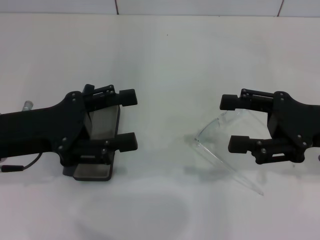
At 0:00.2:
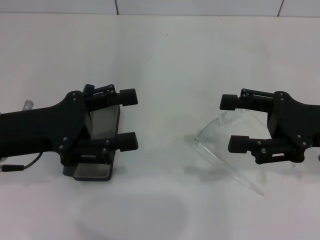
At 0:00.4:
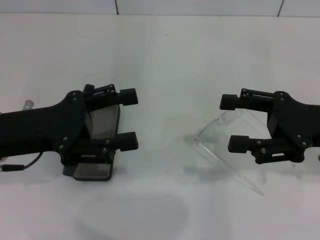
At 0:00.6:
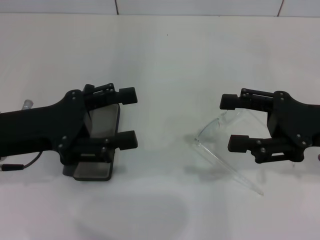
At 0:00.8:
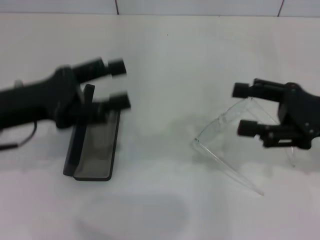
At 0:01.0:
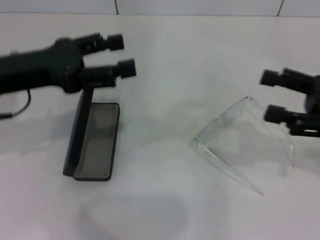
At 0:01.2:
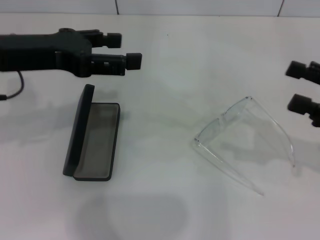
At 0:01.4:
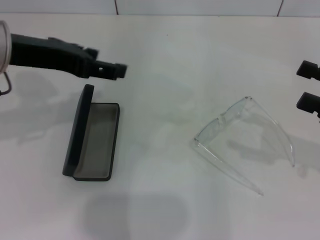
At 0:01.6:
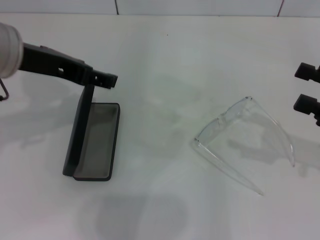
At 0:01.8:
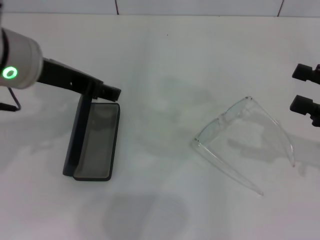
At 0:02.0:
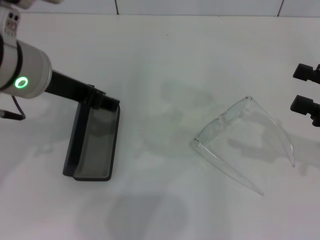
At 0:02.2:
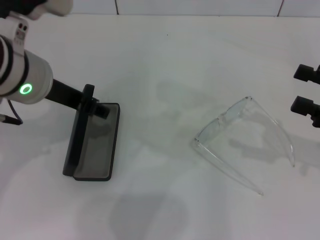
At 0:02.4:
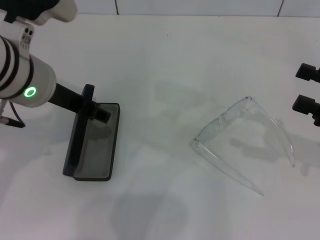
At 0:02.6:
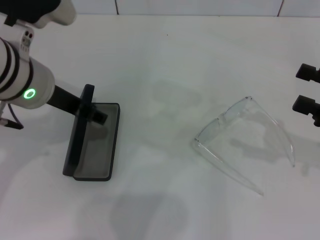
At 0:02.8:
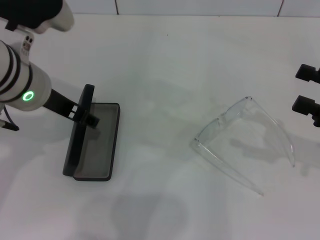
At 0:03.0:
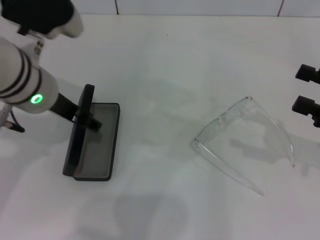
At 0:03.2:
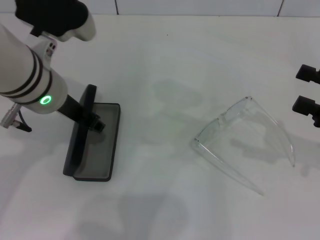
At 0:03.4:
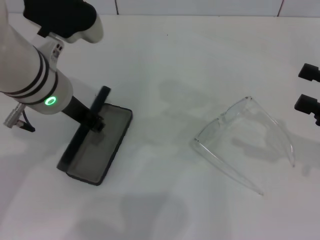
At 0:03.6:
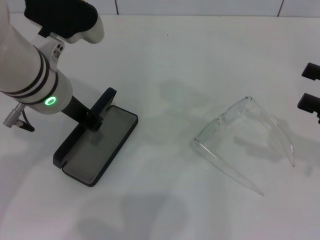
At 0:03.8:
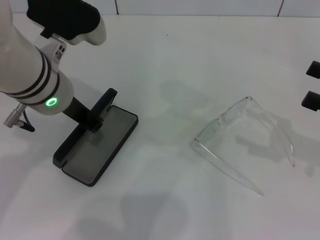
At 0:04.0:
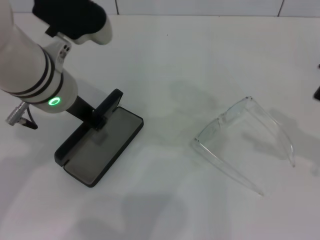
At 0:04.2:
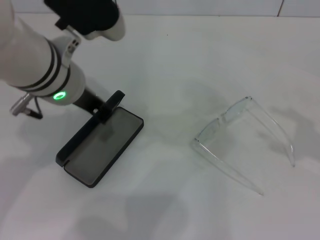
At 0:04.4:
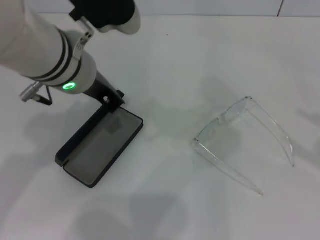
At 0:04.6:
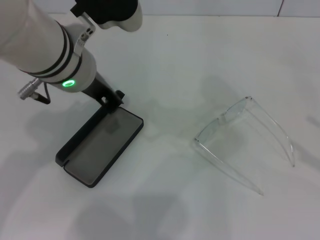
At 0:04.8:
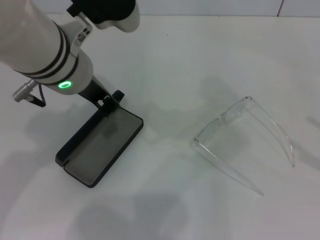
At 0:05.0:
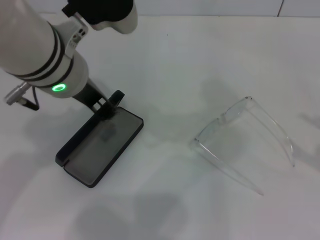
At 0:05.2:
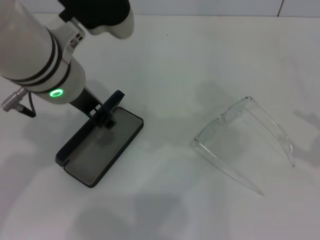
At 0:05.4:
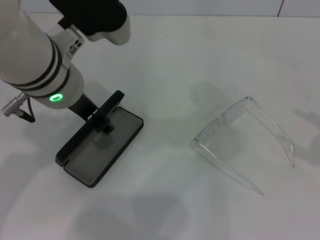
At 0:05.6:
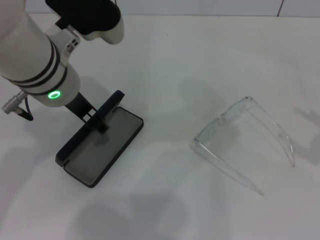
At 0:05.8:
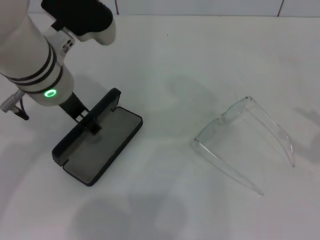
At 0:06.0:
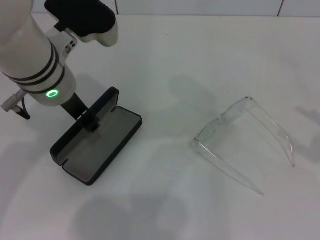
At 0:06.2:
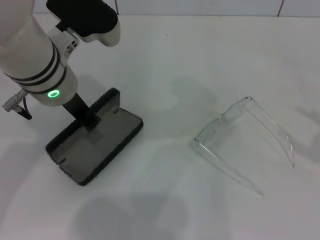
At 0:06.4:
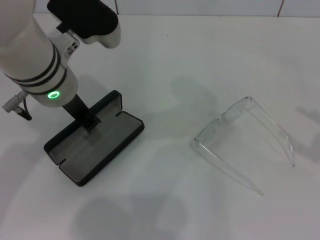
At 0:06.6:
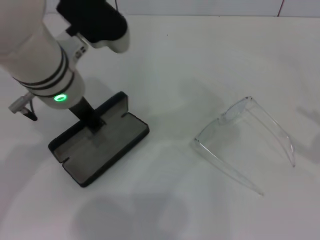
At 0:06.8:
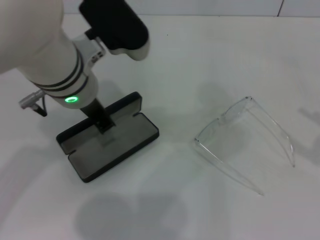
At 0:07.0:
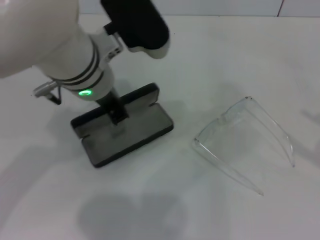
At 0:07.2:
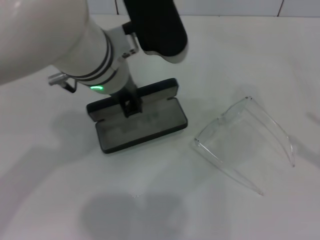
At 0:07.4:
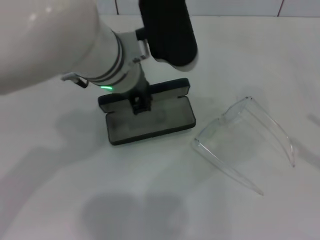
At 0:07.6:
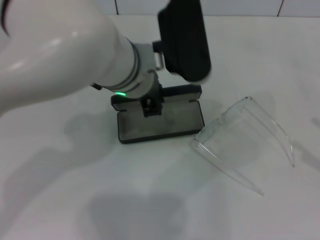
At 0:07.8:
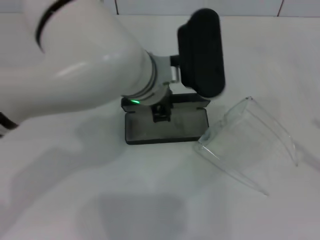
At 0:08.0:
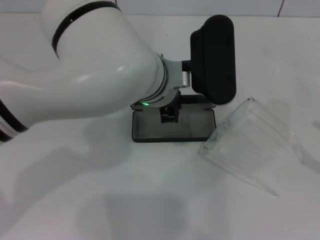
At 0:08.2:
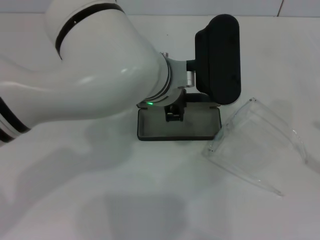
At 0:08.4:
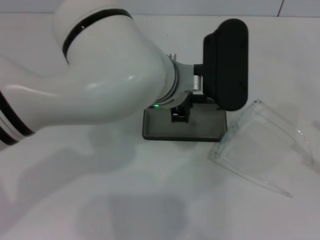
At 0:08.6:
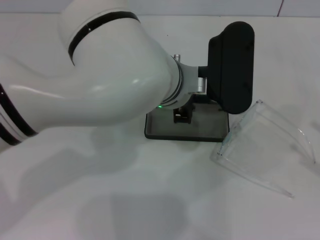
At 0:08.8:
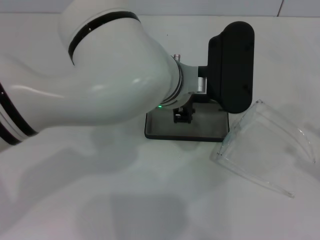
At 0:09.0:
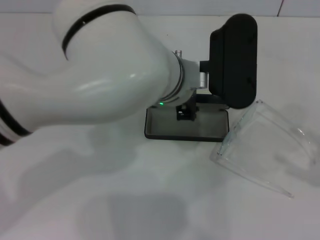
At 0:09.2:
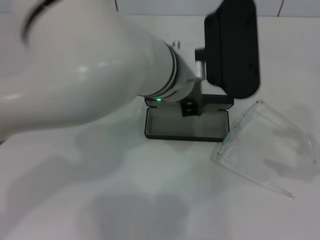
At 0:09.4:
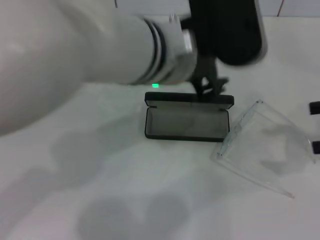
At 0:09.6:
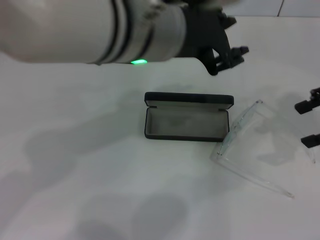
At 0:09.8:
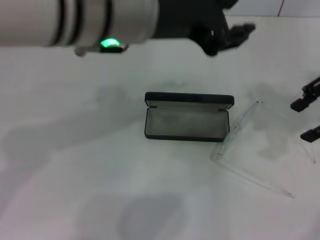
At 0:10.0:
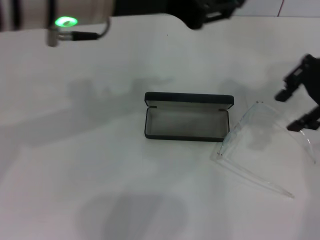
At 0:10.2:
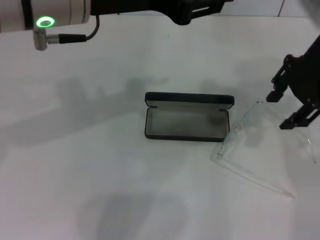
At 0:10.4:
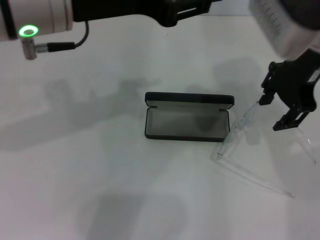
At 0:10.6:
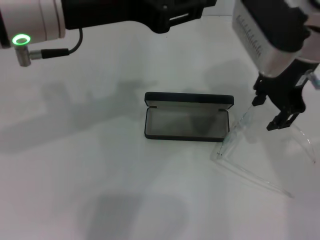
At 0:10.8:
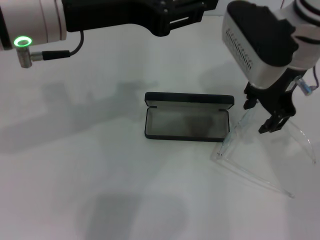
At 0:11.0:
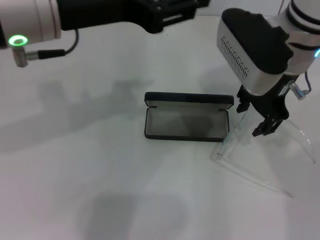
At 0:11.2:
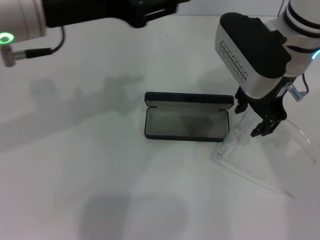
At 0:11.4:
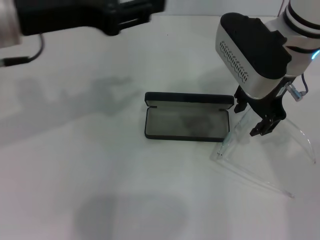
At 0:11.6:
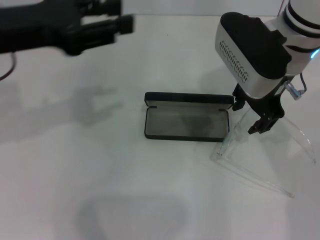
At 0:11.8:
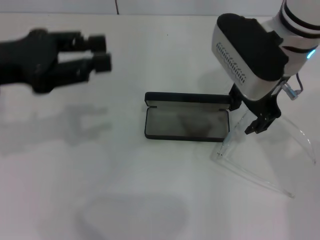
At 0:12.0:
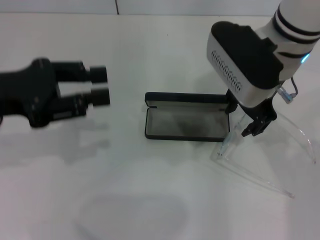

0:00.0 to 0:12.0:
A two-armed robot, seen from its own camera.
Step, 0:00.0 to 0:06.4: Grab the glasses case with your left hand.
Step, 0:06.6 to 0:09.2: Place the glasses case in the center of the table with your left hand.
0:00.0 to 0:01.6: The right gripper goes about 10 cm to the right. The left gripper is displaced upward by some 10 cm.
0:01.6 to 0:03.0: The left gripper shifts some 5 cm downward.
0:03.0 to 0:04.4: The right gripper shifts approximately 10 cm to the right and backward. The left gripper changes place by roughly 5 cm, and closes.
0:04.4 to 0:06.0: The left gripper opens its fingers.
0:06.0 to 0:07.6: The left gripper heads to the right, covering roughly 10 cm.
0:09.0 to 0:10.4: The right gripper shifts approximately 35 cm to the left, forward and upward. The left gripper travels to the left and upward by roughly 20 cm.
0:10.4 to 0:12.0: The left gripper shifts roughly 15 cm to the left and downward, while the right gripper shifts by some 5 cm.

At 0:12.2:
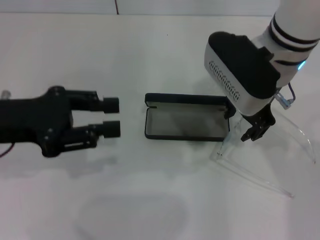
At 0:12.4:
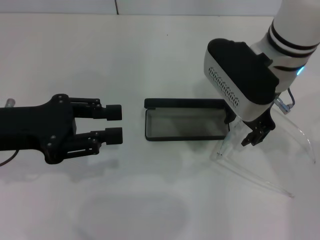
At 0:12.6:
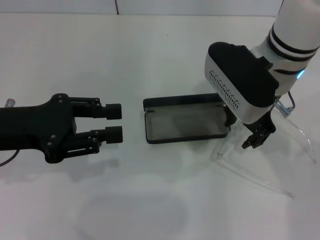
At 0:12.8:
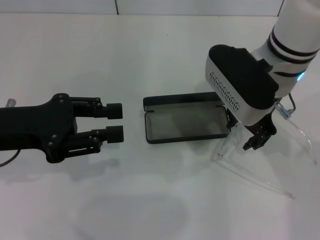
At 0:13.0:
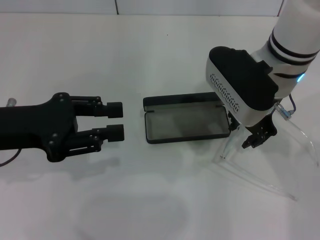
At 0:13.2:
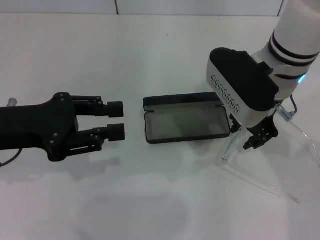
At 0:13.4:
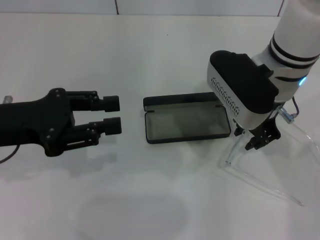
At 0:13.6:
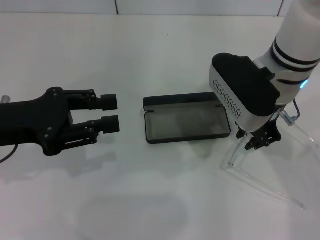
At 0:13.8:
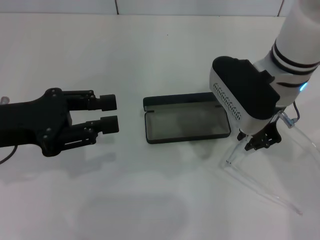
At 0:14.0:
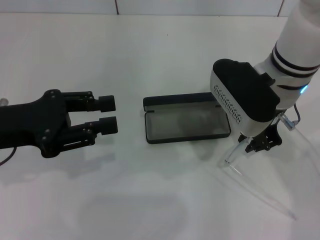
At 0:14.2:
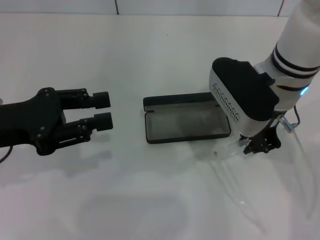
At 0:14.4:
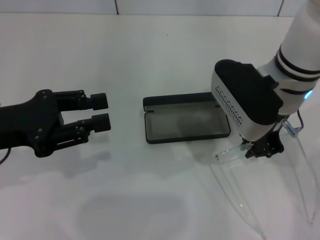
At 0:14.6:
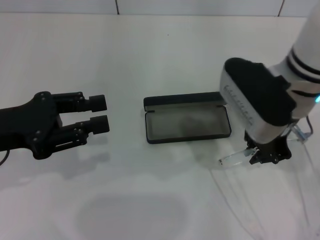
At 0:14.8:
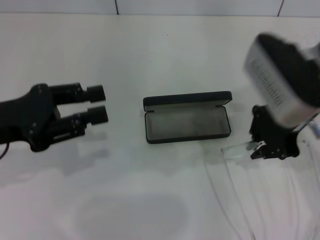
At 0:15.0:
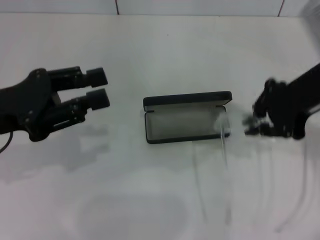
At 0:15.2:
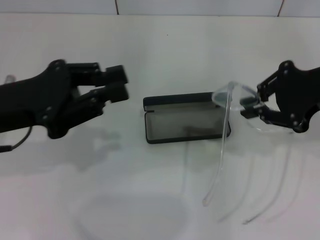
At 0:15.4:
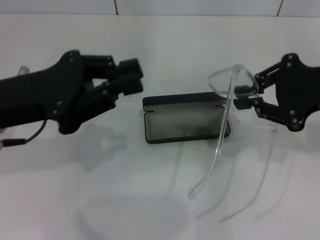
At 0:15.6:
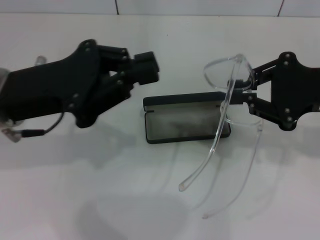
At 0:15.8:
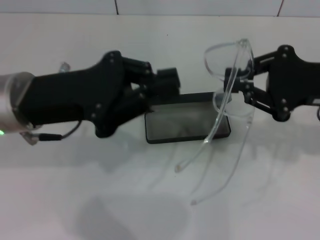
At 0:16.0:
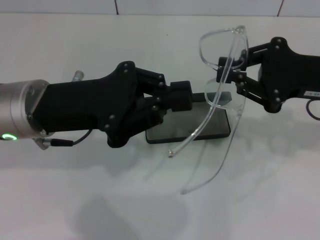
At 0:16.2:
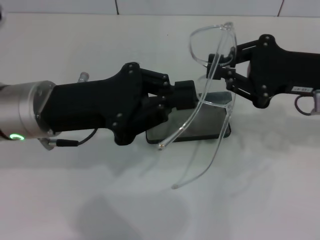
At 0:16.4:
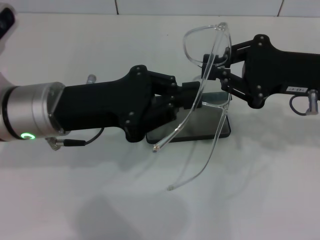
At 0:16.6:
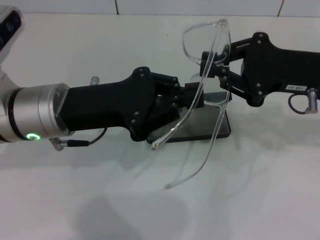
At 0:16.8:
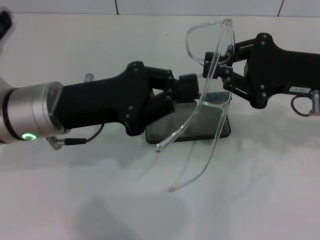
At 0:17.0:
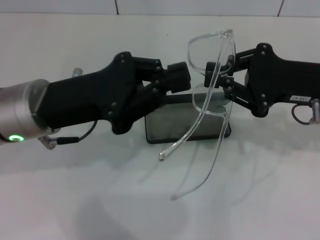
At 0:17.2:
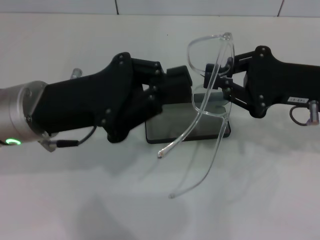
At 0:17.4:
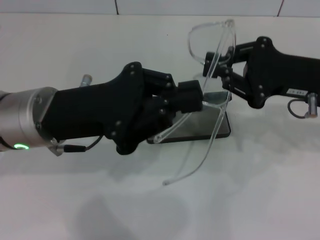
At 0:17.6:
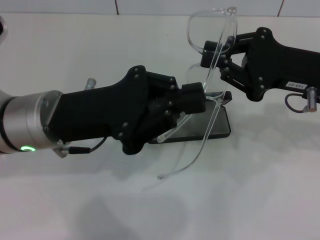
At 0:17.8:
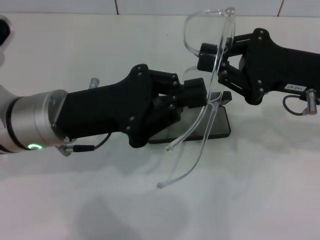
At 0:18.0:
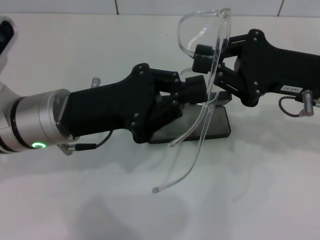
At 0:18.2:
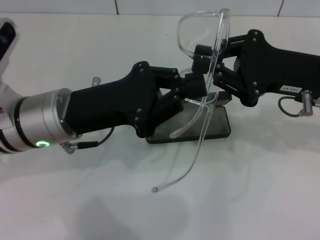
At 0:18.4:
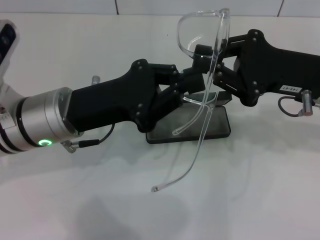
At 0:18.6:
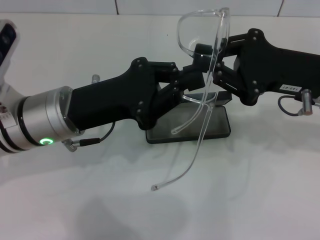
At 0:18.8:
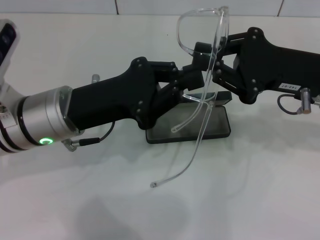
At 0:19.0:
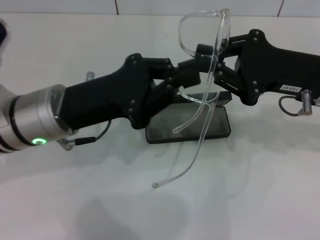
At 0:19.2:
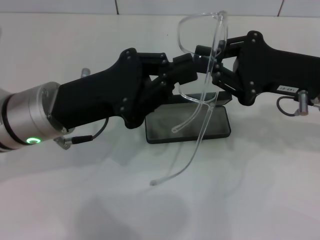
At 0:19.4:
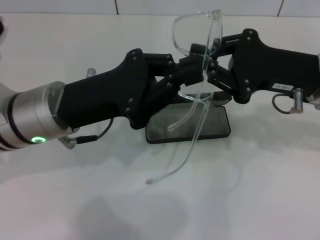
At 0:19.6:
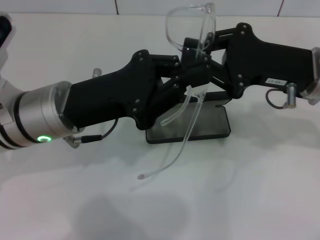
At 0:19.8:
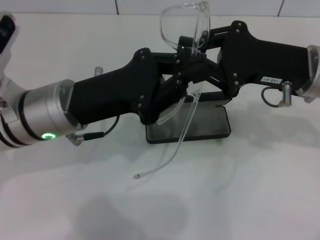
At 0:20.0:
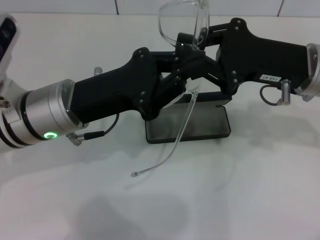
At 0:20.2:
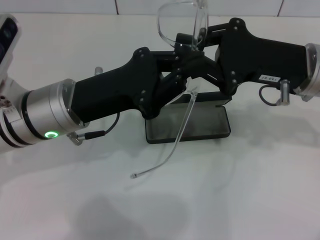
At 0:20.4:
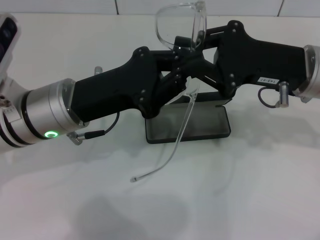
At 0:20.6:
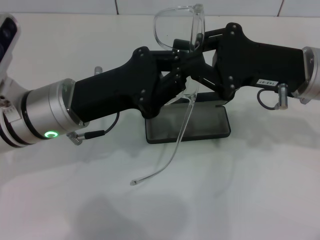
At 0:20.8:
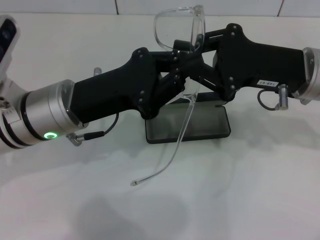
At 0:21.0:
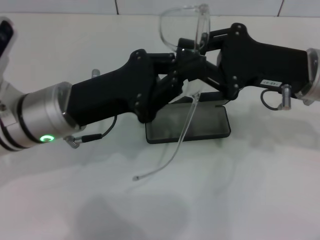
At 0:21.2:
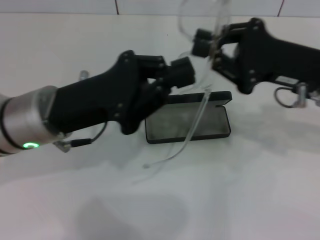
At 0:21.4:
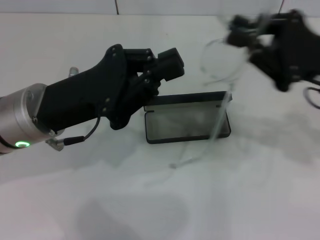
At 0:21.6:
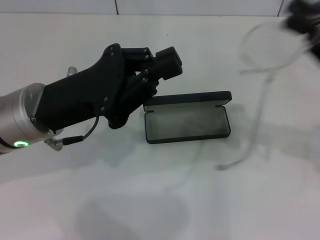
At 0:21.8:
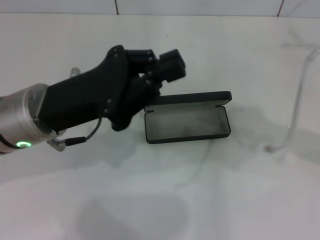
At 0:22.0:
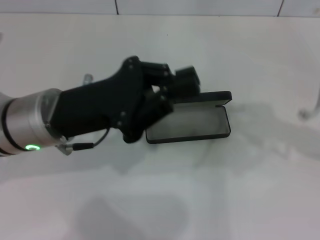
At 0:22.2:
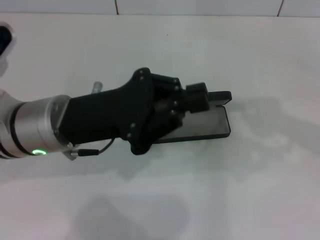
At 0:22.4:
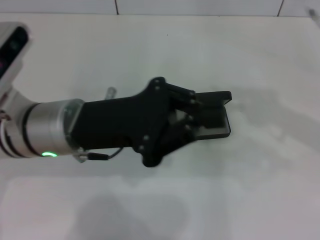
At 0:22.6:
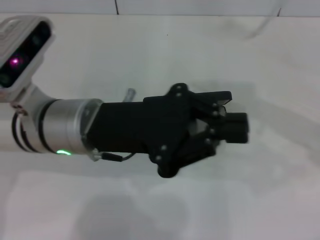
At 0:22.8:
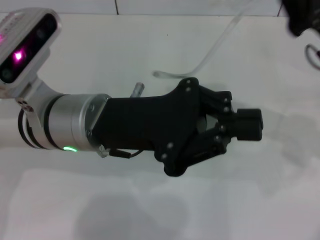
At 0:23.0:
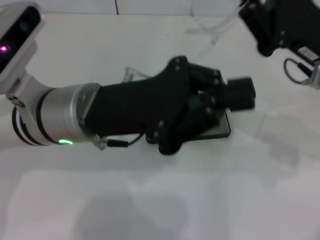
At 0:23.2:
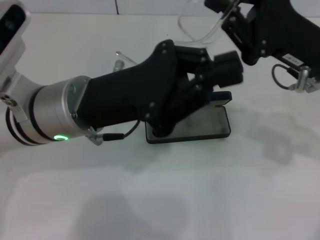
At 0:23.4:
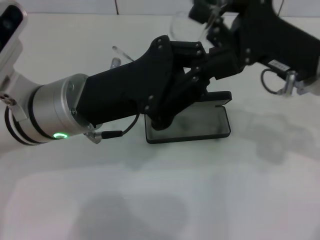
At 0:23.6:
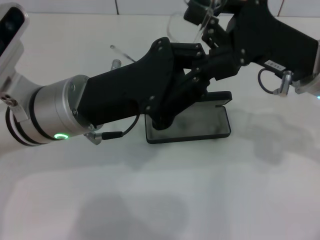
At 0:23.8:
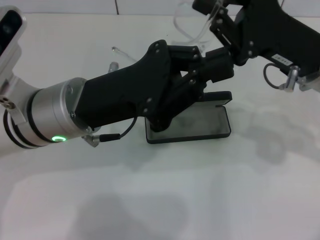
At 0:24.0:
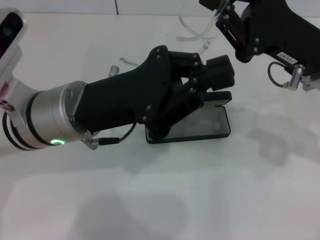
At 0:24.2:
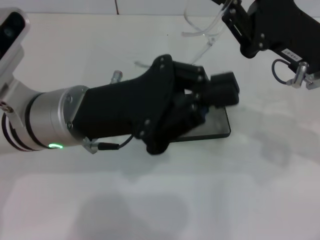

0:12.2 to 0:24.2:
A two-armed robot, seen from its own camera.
0:12.2 to 0:13.8: The right gripper closes up.
0:13.8 to 0:15.2: The right gripper travels to the right, upward and backward by roughly 15 cm.
0:15.2 to 0:16.6: The right gripper goes roughly 5 cm downward; the left gripper travels to the right by some 10 cm, and closes up.
0:16.6 to 0:21.2: The grippers make only small movements.
0:22.6 to 0:24.2: The right gripper moves to the left, some 5 cm.
